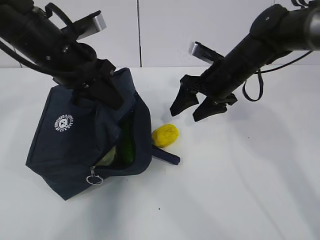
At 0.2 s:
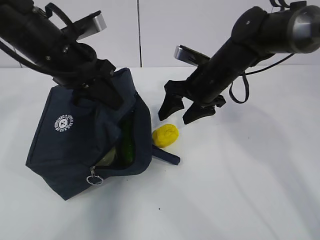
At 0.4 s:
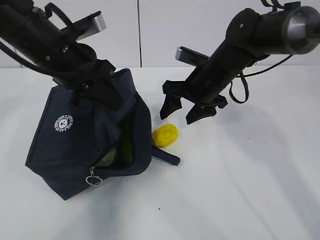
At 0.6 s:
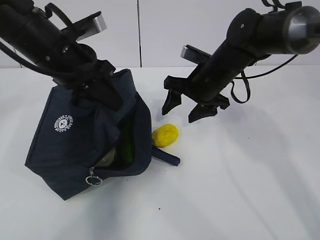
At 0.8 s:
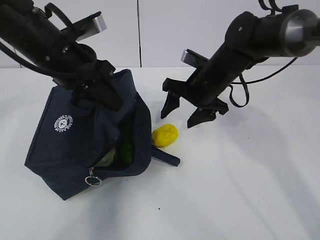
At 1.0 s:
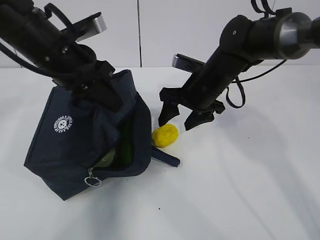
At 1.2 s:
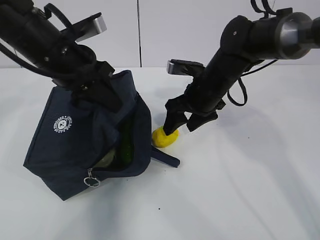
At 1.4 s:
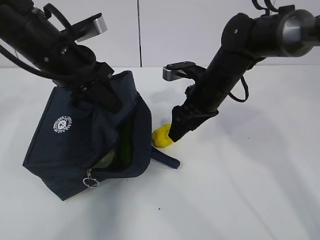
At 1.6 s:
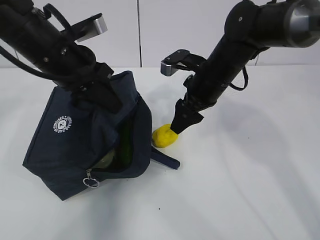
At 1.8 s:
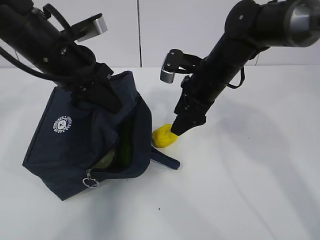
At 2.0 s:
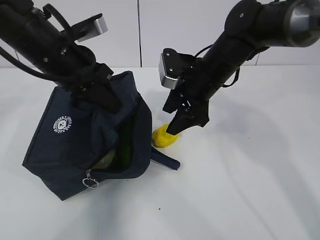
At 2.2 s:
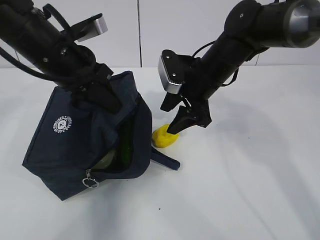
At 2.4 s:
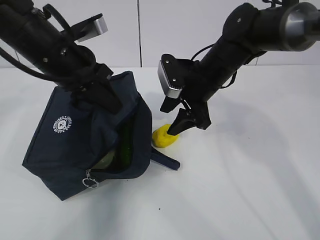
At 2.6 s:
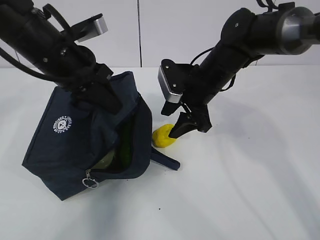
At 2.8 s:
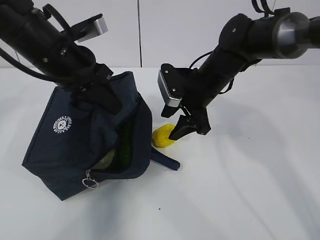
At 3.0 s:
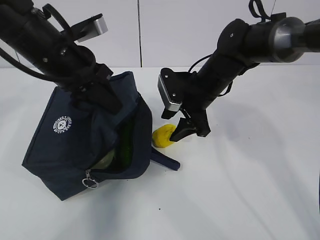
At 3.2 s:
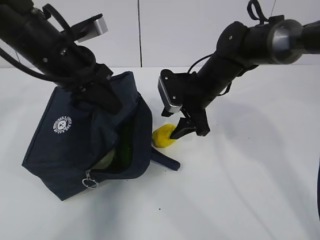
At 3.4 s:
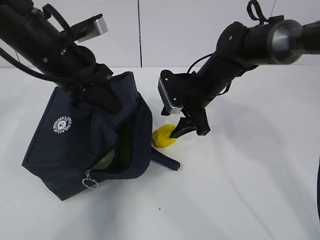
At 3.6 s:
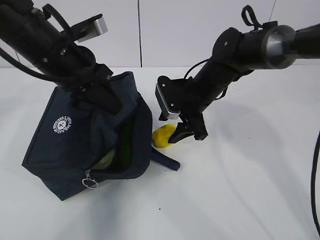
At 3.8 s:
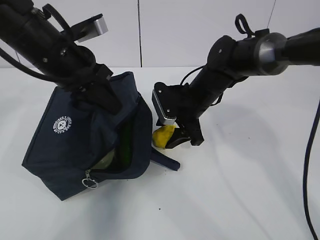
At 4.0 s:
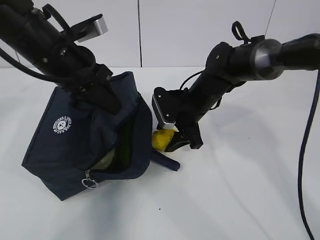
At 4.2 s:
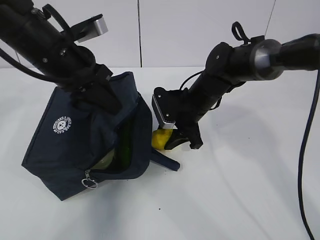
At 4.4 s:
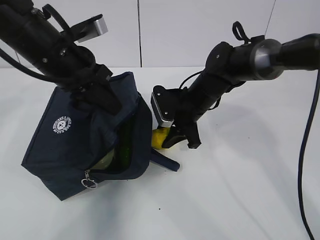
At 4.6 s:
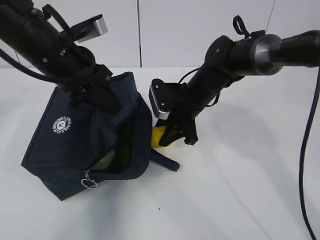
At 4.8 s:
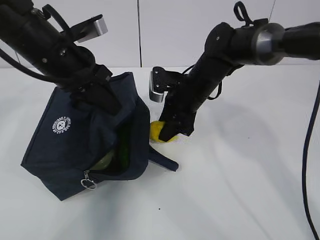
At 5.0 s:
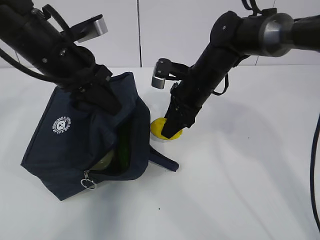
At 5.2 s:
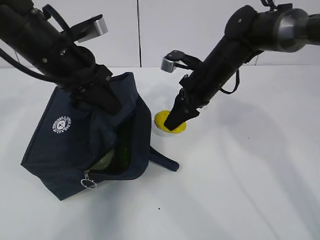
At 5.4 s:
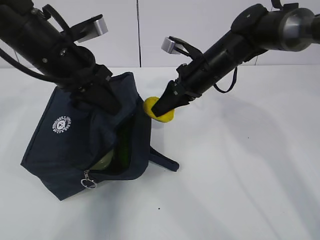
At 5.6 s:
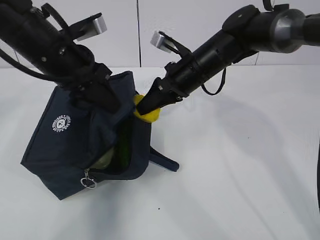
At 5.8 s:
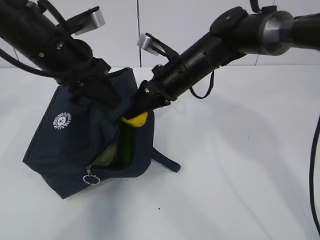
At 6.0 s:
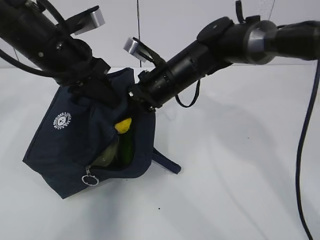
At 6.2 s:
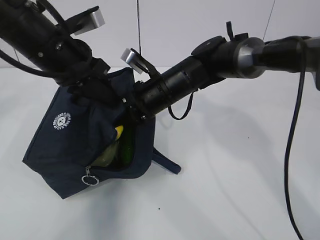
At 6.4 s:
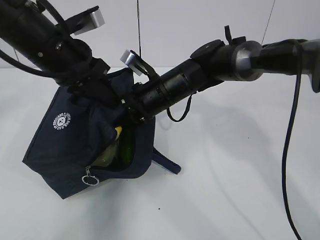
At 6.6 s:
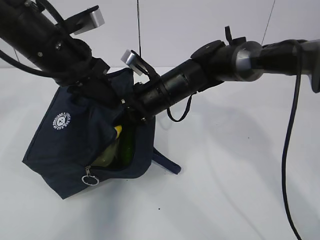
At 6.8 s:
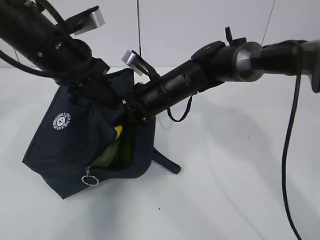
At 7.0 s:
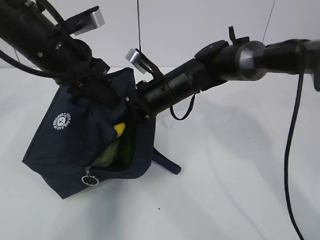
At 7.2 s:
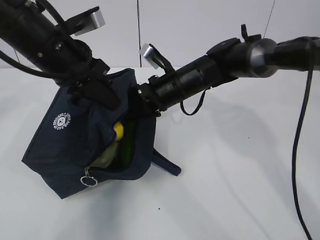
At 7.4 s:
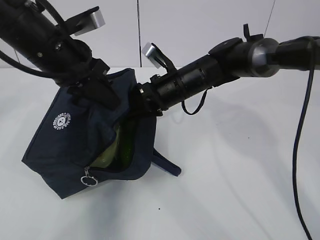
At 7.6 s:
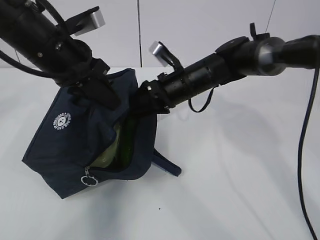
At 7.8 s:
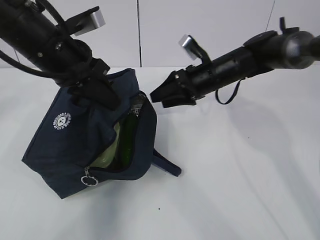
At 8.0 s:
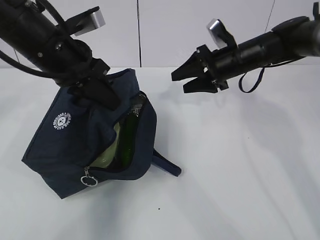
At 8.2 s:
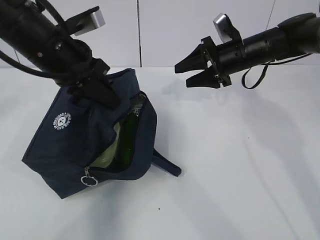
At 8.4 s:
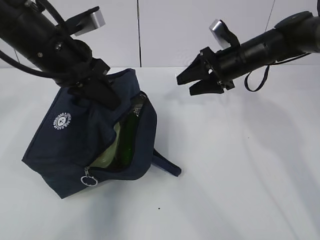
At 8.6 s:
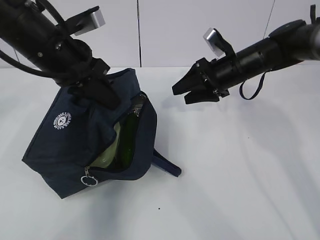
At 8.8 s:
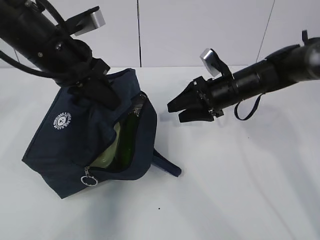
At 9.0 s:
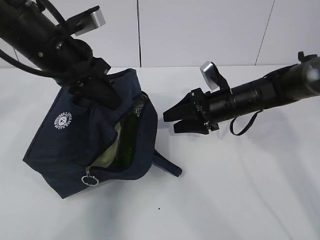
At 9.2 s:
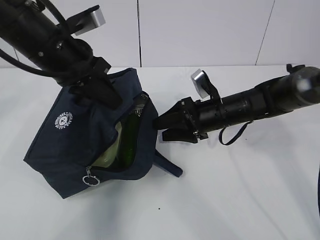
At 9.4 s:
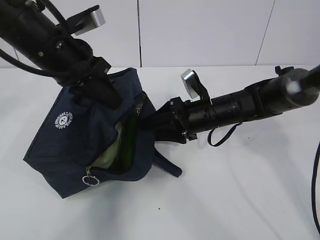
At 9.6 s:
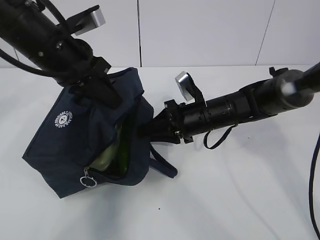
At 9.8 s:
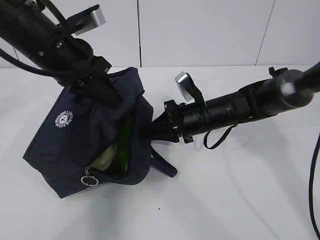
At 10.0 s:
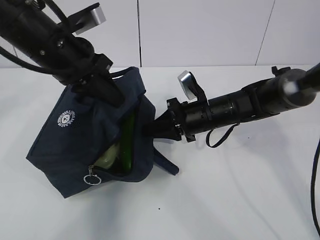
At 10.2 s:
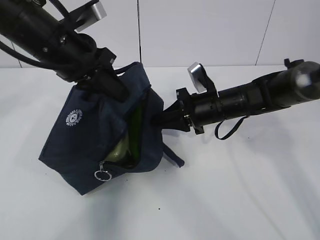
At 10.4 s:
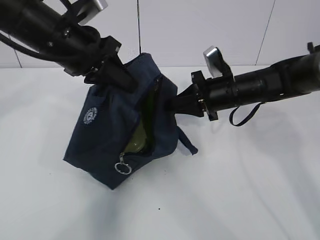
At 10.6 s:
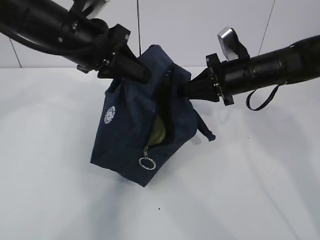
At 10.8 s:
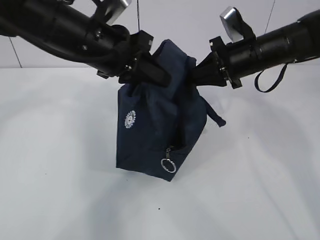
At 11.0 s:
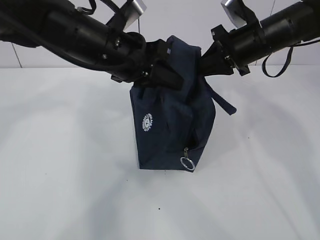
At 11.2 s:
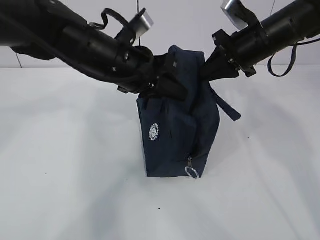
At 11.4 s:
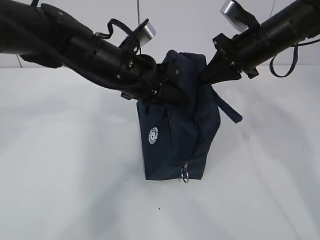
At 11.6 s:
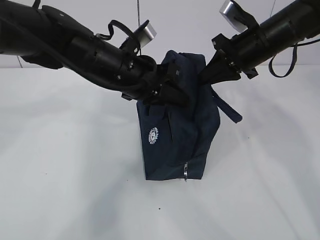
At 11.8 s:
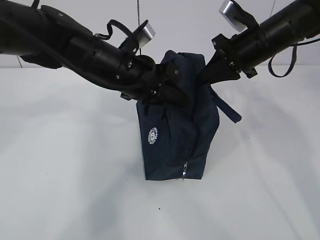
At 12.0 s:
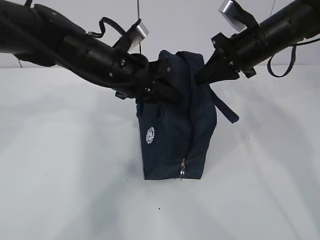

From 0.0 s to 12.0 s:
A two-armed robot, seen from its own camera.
Step, from 0.0 s to 4.2 s: Grasp the lemon with the right gripper.
Step, from 4.4 s to 7.4 s: Place the lemon into the package with the right gripper.
From 3.0 s to 4.4 s: The right gripper closes.
From 4.4 s to 6.0 s: The right gripper goes about 10 cm upward and to the left.
From 6.0 s to 7.6 s: The right gripper ends up approximately 5 cm from where it was, and opens.
From 7.6 s to 9.0 s: The right gripper is displaced to the right by some 5 cm.
From 9.0 s to 10.4 s: The right gripper closes.
From 10.4 s to 12.0 s: The left gripper moves to the right and downward, some 10 cm, while the right gripper is displaced upward by roughly 10 cm.

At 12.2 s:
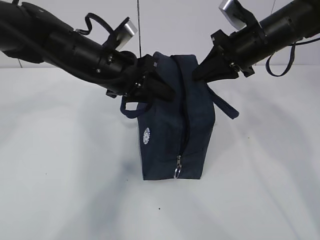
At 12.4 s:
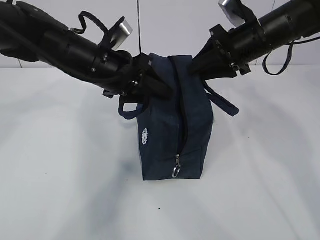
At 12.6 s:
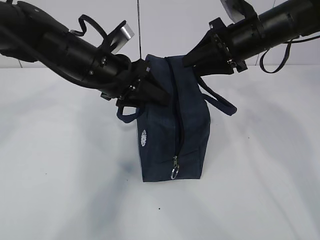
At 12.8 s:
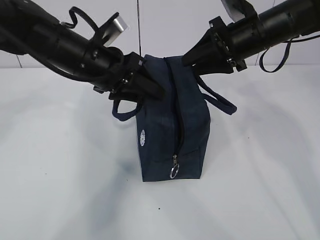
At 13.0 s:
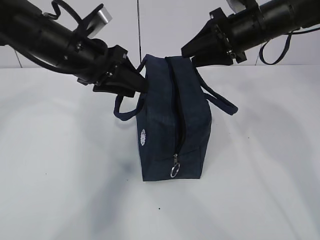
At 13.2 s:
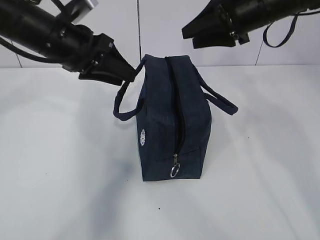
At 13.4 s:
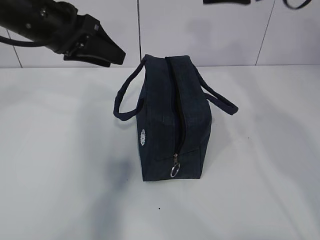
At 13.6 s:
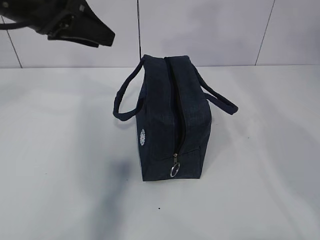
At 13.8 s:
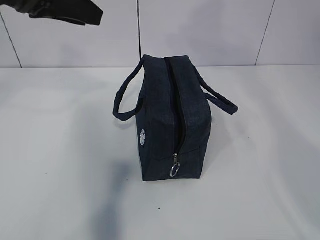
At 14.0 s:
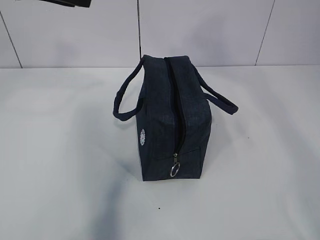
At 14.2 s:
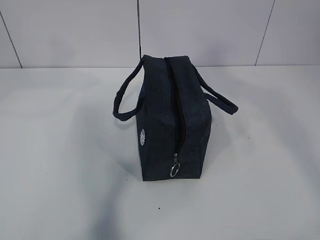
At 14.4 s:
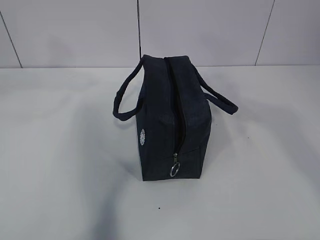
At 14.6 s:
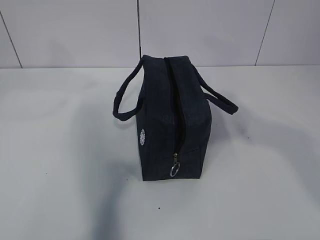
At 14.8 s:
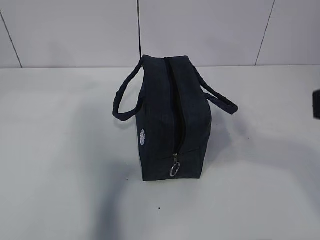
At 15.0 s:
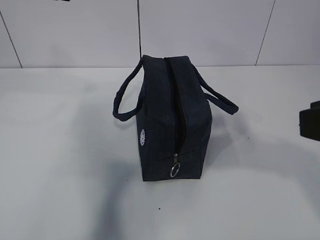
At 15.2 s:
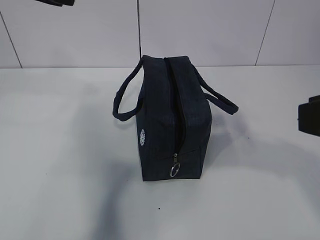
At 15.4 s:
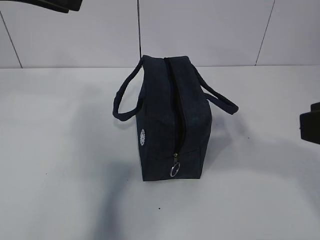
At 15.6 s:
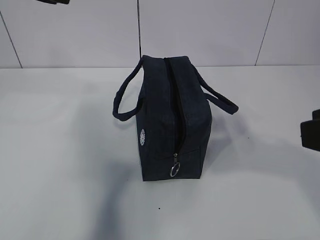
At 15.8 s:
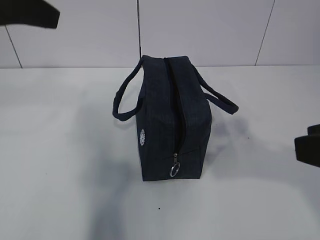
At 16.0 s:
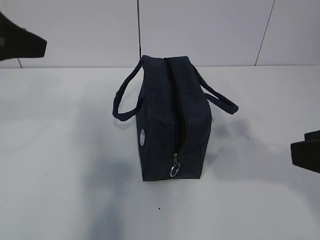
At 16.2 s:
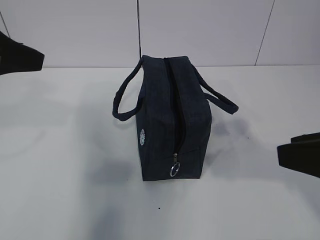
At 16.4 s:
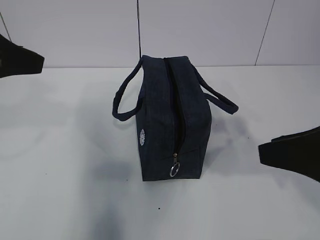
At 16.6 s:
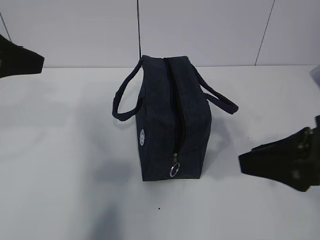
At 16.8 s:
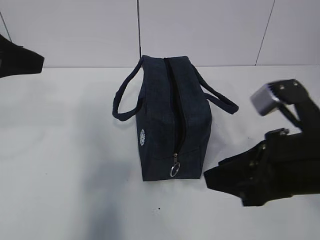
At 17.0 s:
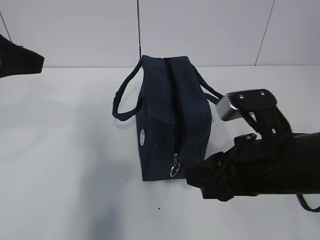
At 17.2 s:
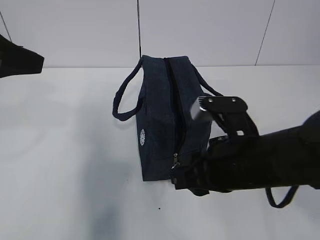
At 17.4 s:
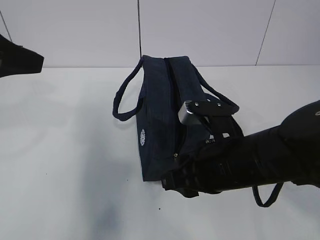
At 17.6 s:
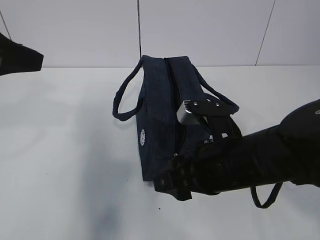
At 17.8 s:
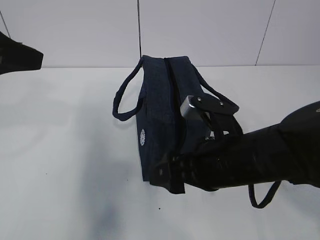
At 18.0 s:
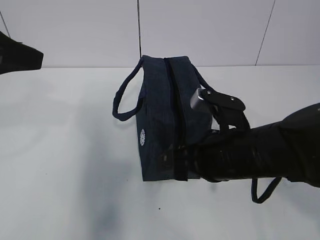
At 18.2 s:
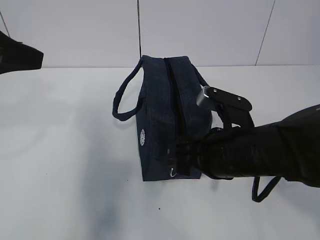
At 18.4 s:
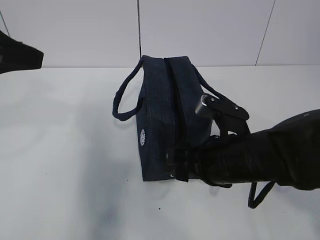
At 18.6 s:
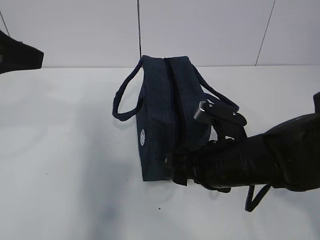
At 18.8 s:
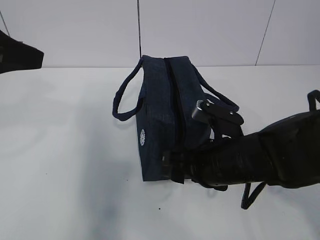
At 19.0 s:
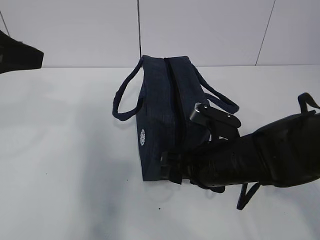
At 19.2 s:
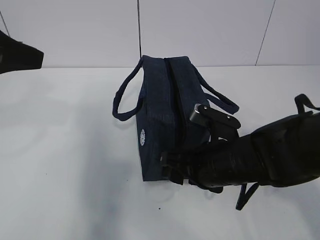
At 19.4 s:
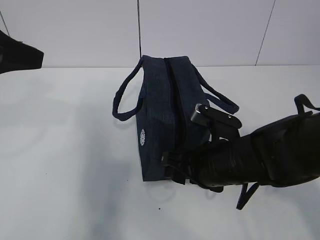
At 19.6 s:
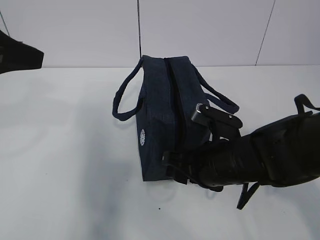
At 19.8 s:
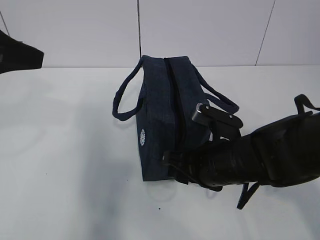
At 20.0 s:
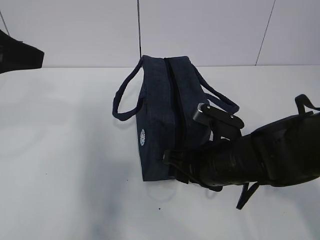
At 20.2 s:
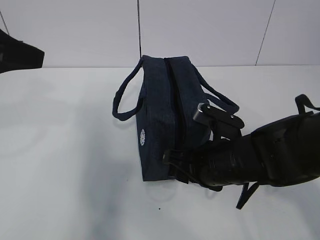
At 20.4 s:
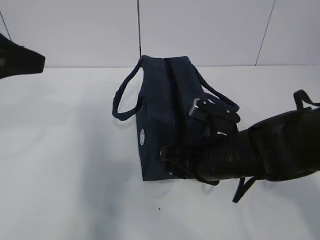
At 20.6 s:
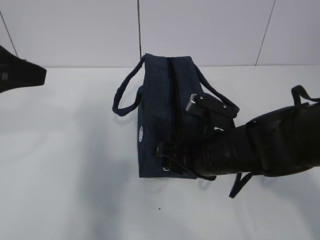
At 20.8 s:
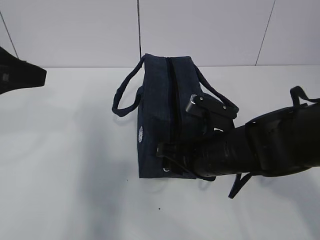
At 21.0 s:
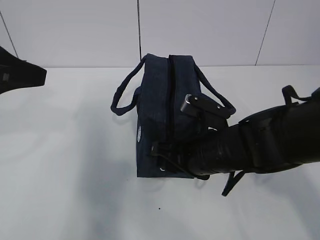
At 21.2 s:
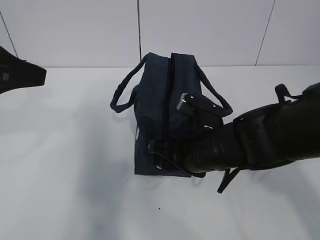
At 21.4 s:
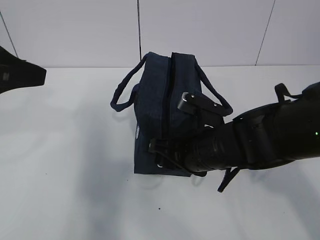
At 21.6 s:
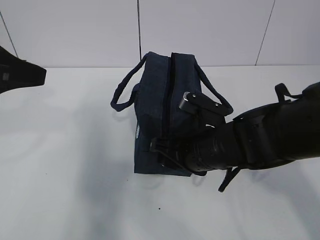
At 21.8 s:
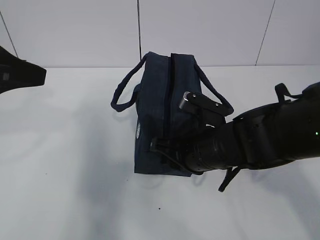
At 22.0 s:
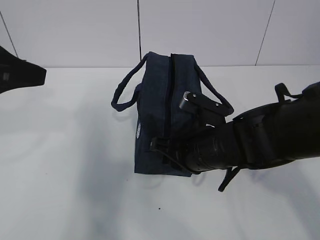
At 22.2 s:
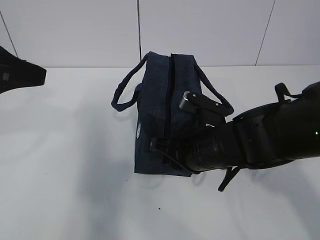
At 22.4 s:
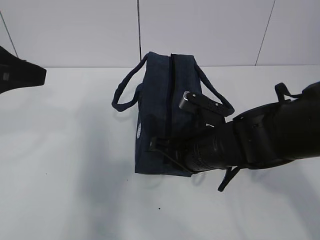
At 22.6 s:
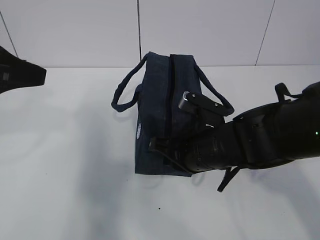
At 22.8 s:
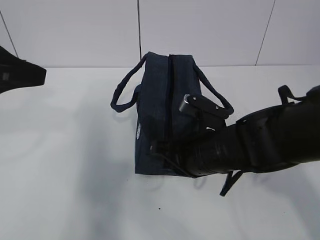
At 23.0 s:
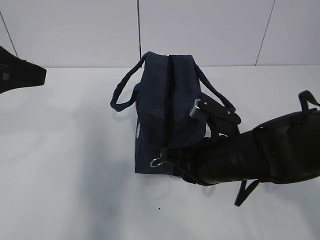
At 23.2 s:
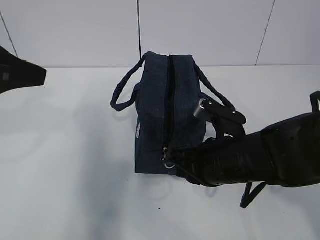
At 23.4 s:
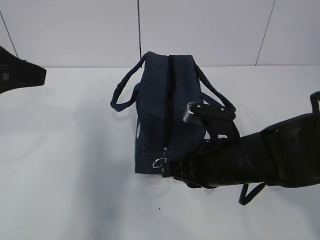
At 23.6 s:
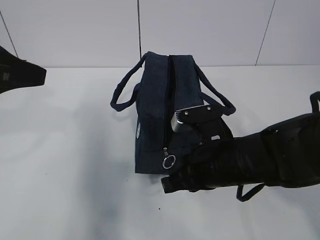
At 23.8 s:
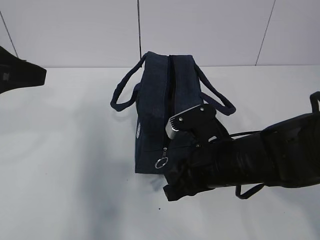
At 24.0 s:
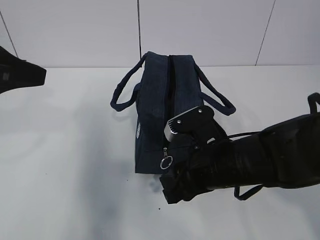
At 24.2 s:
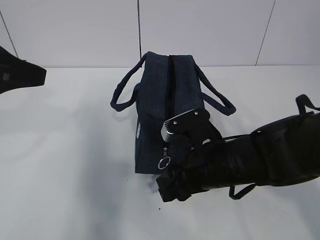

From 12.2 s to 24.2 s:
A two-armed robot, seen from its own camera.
From 12.2 s to 13.8 s: The right gripper shifts some 30 cm upward and backward. Meanwhile the left gripper is displaced upward and to the left by about 15 cm.
From 13.8 s to 15.2 s: The right gripper goes approximately 25 cm backward and downward. The left gripper shifts approximately 5 cm backward.
From 15.2 s to 16.6 s: The left gripper moves downward, roughly 10 cm, while the right gripper moves downward and forward, roughly 10 cm.
From 16.6 s to 18.2 s: The right gripper goes approximately 15 cm to the left, downward and forward, and opens its fingers.
From 18.2 s to 21.2 s: The grippers move only a little.
From 21.2 s to 22.6 s: The right gripper closes.
From 22.6 s to 24.2 s: The right gripper opens its fingers.
